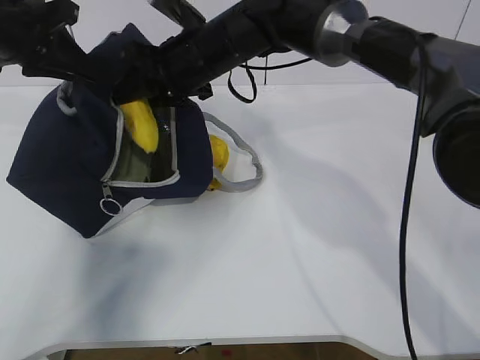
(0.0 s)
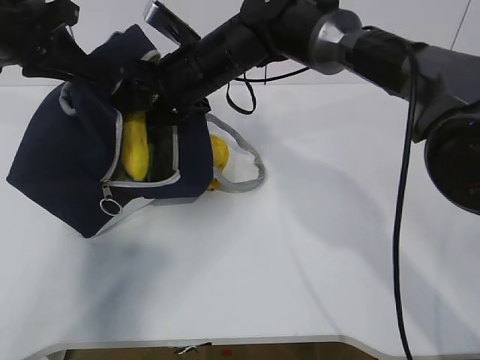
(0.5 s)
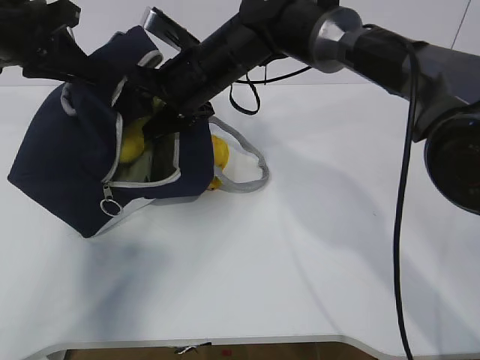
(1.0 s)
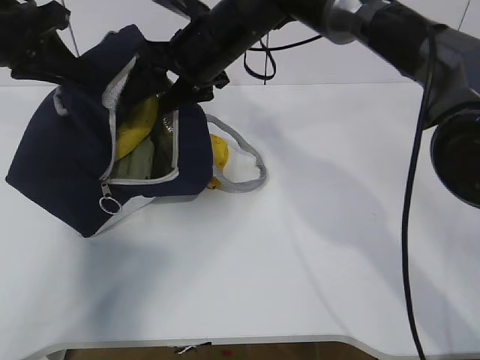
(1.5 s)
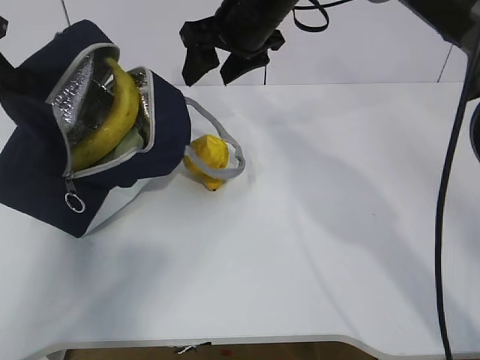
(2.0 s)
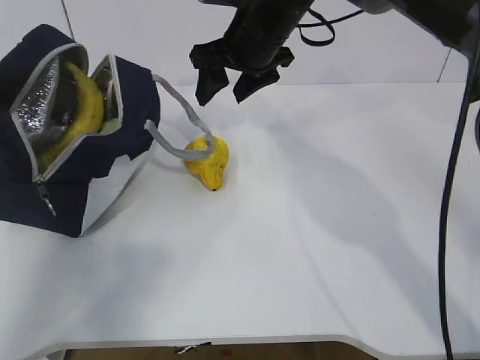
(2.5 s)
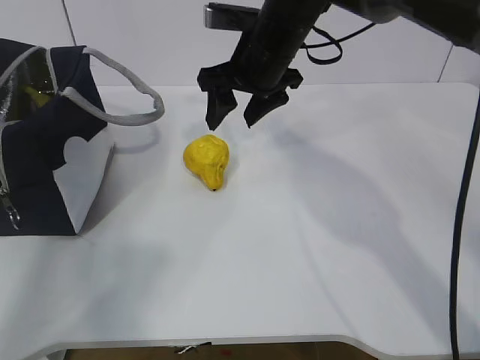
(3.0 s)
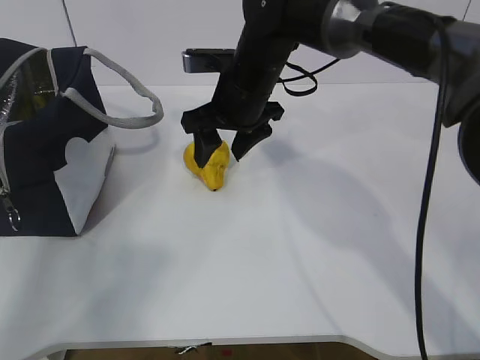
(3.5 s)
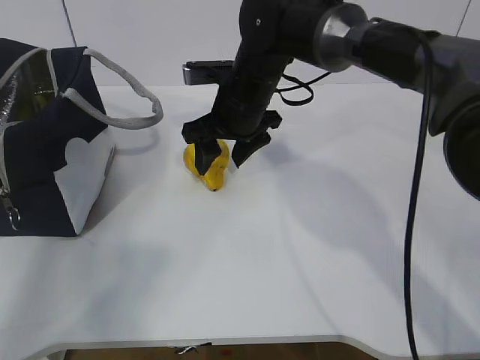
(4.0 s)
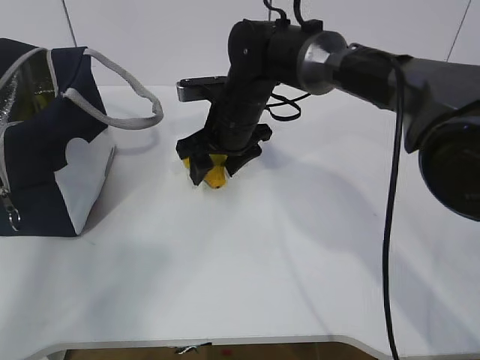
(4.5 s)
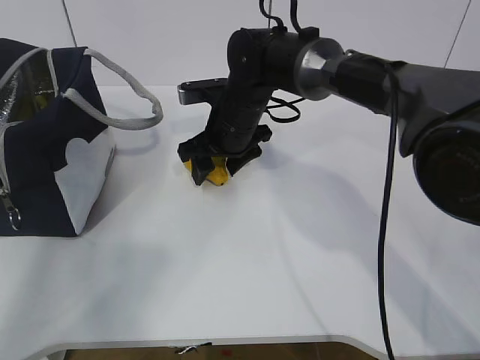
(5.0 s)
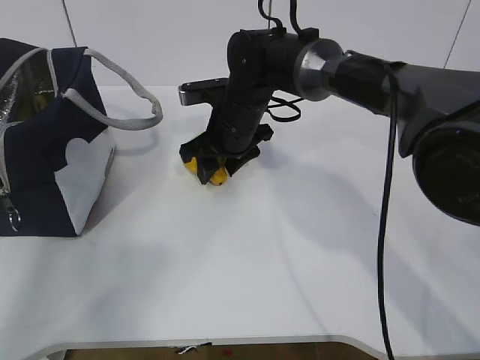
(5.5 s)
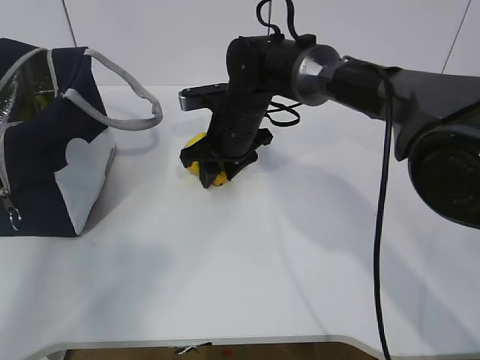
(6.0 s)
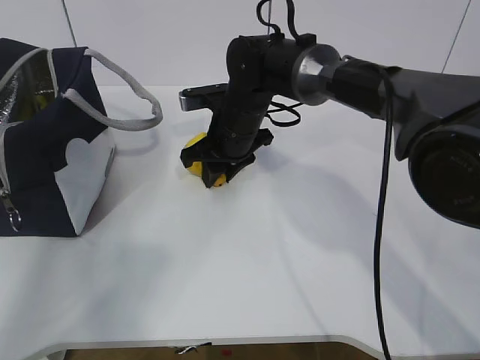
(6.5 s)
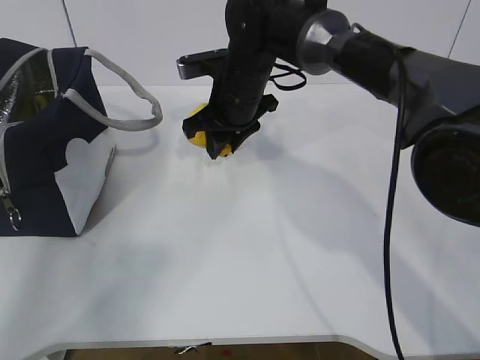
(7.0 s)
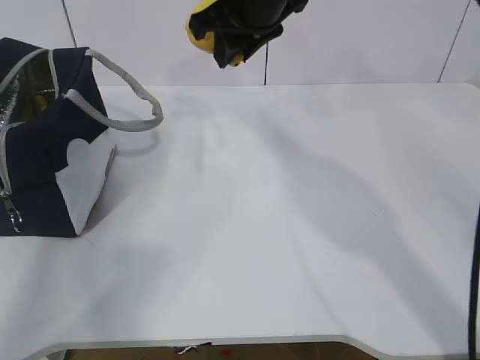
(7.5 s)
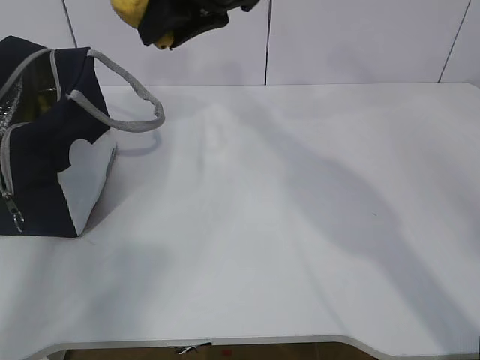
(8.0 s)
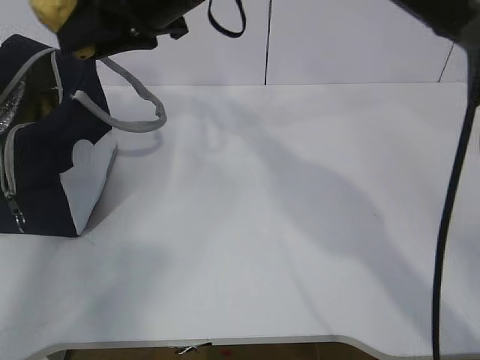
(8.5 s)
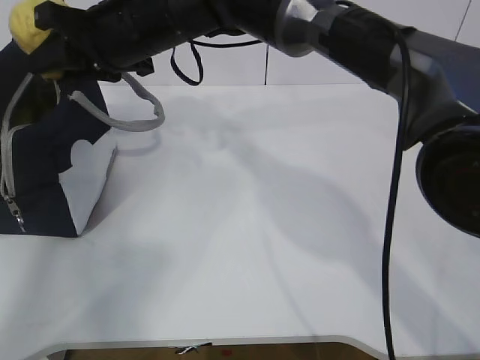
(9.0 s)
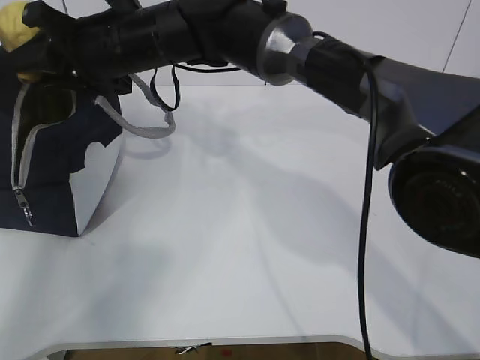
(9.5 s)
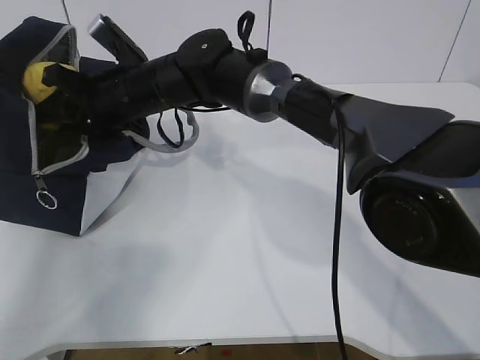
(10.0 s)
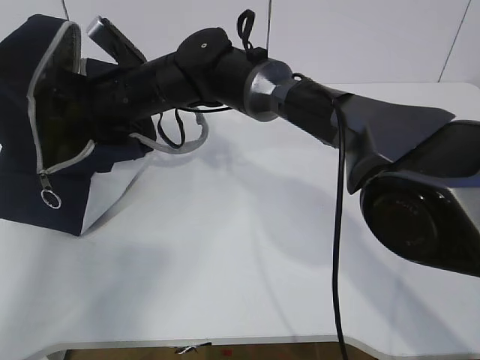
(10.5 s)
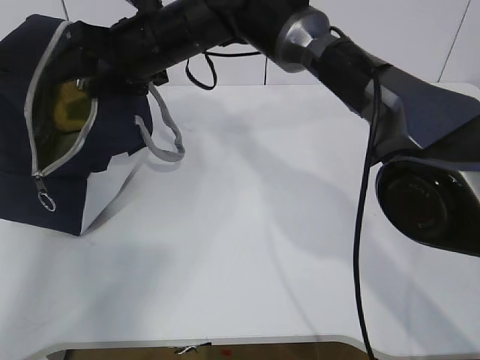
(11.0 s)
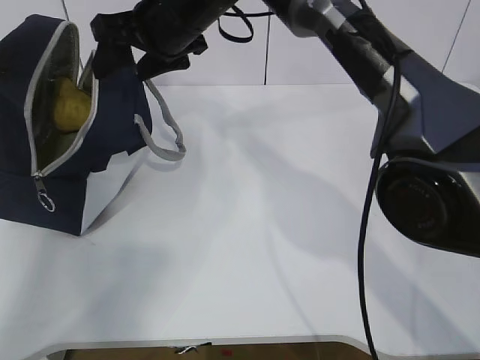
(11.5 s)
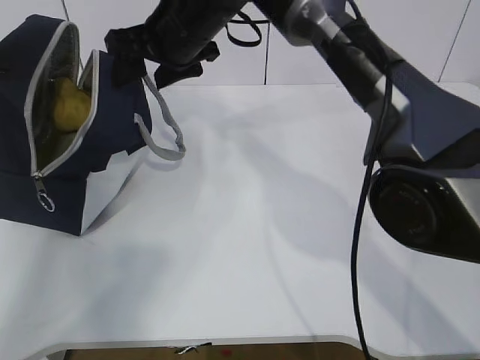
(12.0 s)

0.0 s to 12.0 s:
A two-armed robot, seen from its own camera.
Step, 2.0 to 4.5 s: Secure the lunch bag with your left hand.
Step, 5.5 to 6.5 s: Grab the lunch bag with your right hand.
Step, 7.0 to 8.0 s: Move the lunch bag to the right.
0.0 to 2.0 s: The left gripper is displaced to the left by about 10 cm. Meanwhile the right gripper moves to the right, about 5 cm, and opens its fingers.
2.0 to 4.0 s: The right gripper goes about 10 cm downward, while the left gripper heads to the left, covering about 5 cm.
4.0 to 6.0 s: There are only small adjustments of the grippers.
6.0 to 8.0 s: The right gripper is displaced upward by approximately 20 cm.
8.0 to 10.0 s: The right gripper is displaced downward and to the left by approximately 20 cm.
10.0 to 12.0 s: The right gripper heads upward and to the right, covering some 10 cm, and opens up.

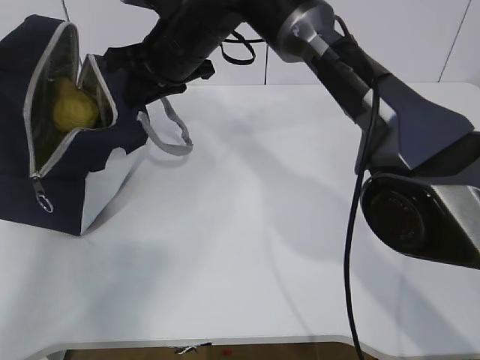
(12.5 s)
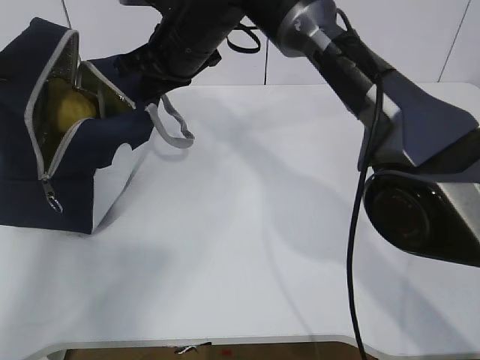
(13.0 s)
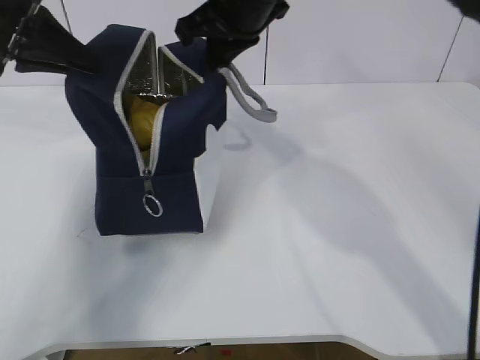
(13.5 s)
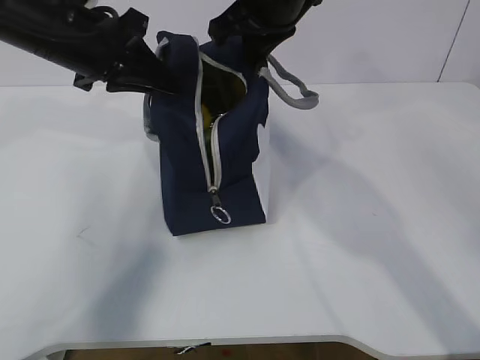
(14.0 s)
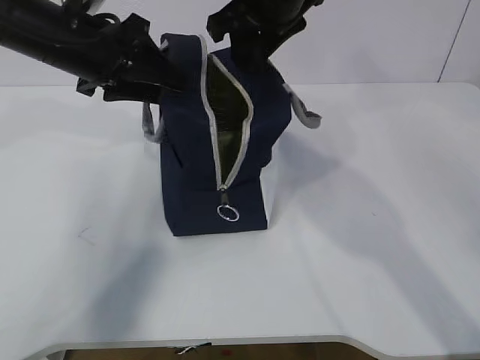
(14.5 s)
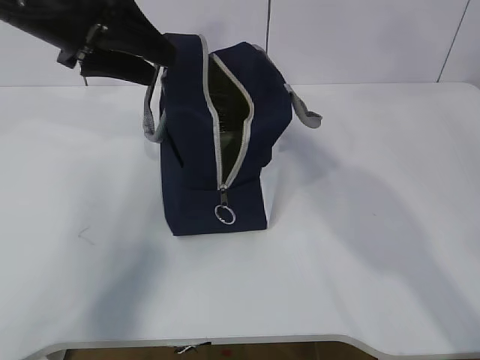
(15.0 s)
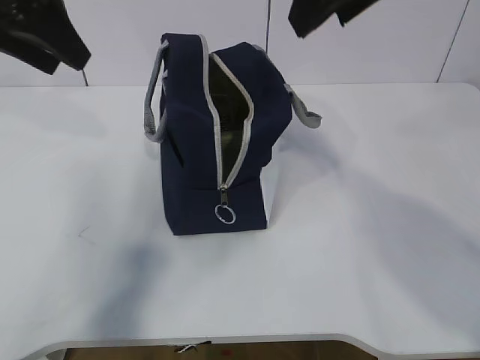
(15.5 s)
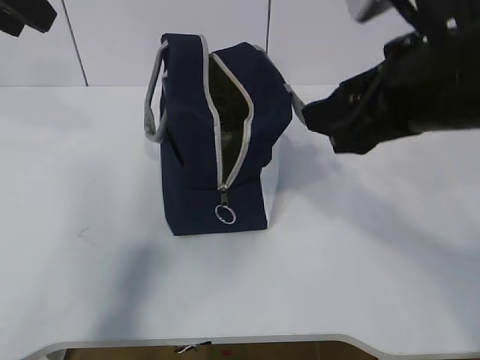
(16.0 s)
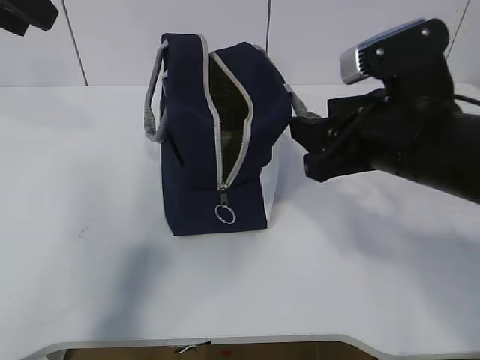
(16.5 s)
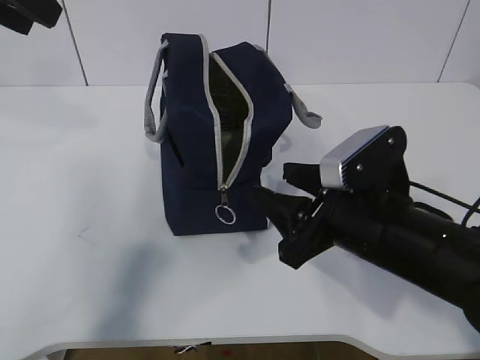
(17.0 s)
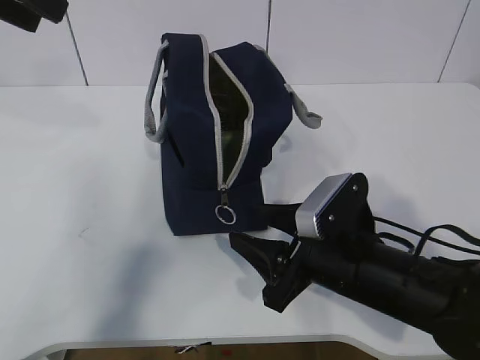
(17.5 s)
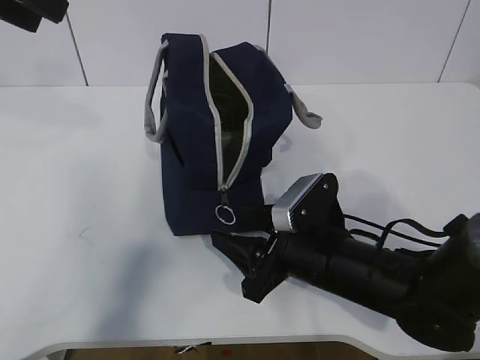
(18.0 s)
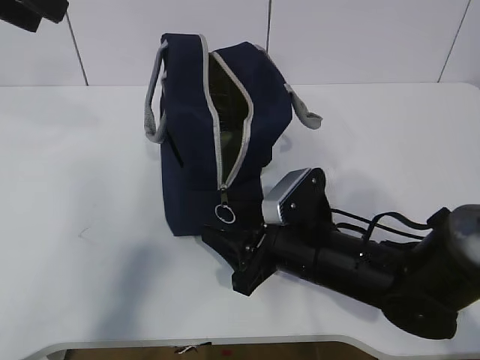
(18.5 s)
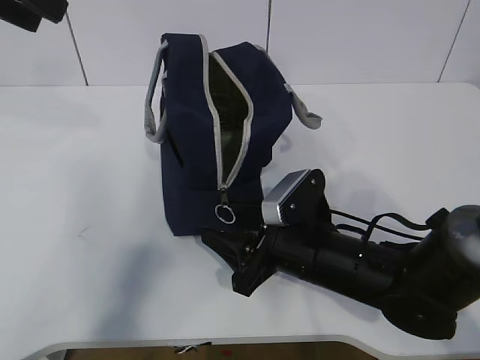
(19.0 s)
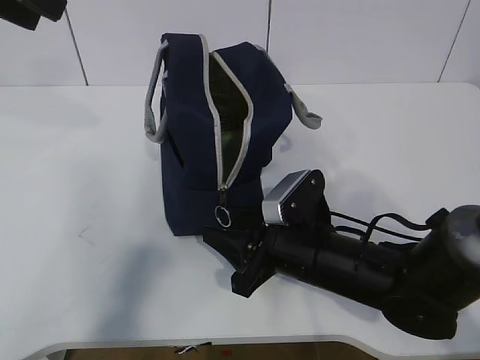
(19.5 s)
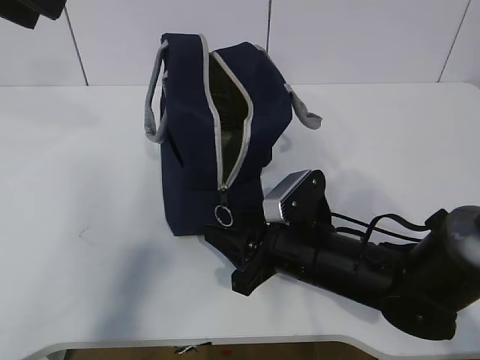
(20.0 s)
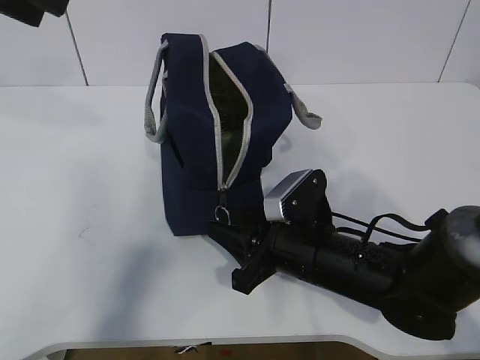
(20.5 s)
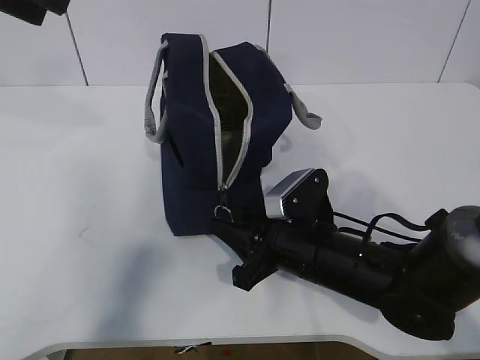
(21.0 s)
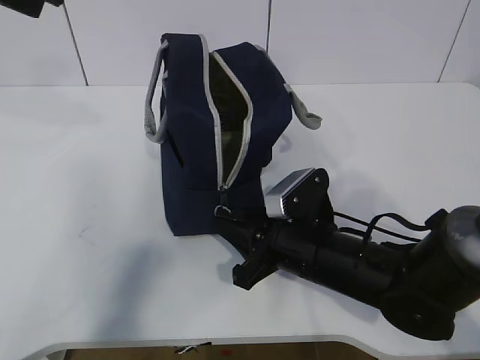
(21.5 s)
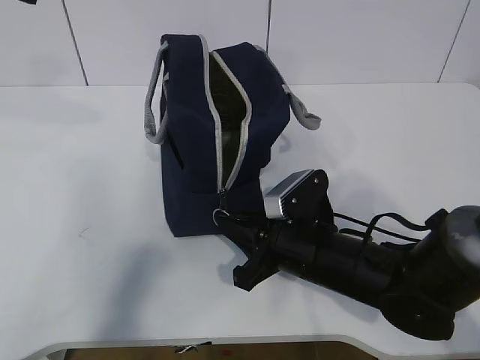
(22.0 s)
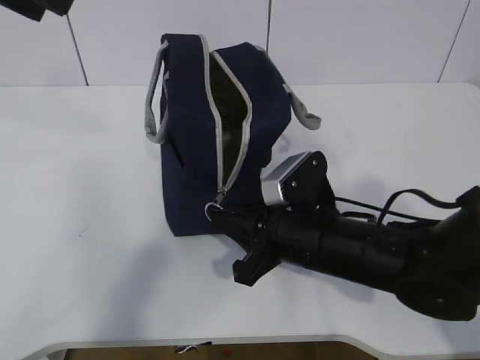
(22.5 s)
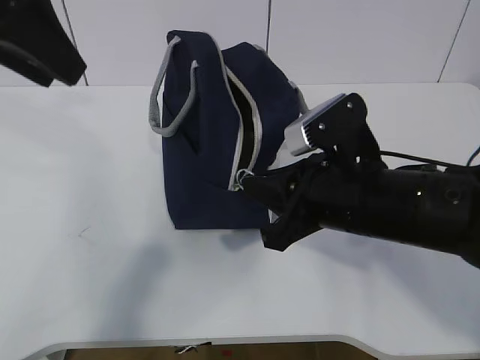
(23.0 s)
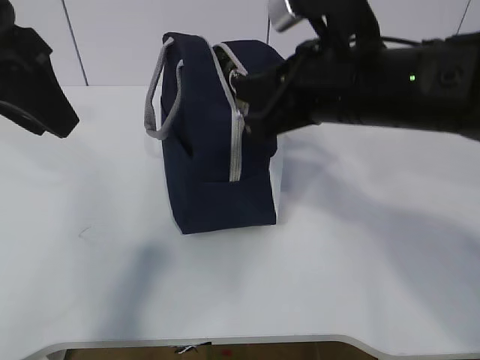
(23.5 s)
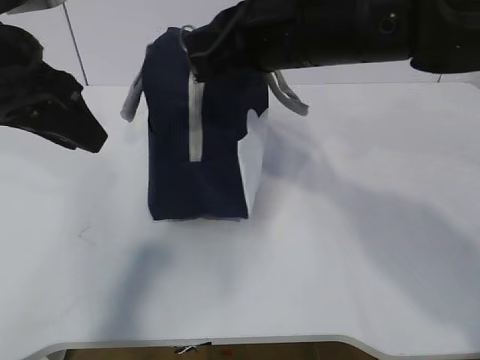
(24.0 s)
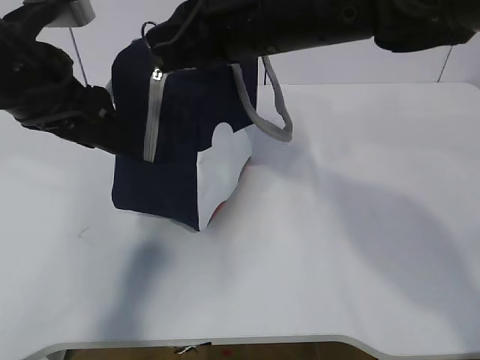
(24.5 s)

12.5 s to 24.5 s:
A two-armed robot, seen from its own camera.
Step, 12.5 to 19.0 s: Grab the lunch bag with your left hand.
Step, 19.5 to 21.5 s: Pull the zipper with your right hand.
12.5 to 14.5 s: The left gripper moves to the right, roughly 20 cm, and opens up; the right gripper moves to the right and upward, roughly 10 cm, and closes and opens again.
14.5 to 16.5 s: The right gripper travels backward, to the right and downward by roughly 20 cm. Meanwhile the left gripper travels upward, backward and to the left by about 15 cm.
16.5 to 18.5 s: The right gripper moves downward, roughly 15 cm.
18.5 to 20.5 s: The right gripper closes its fingers.
20.5 to 22.5 s: The right gripper closes up.
22.5 to 24.5 s: The left gripper moves downward, approximately 15 cm. Meanwhile the right gripper travels upward by some 20 cm.

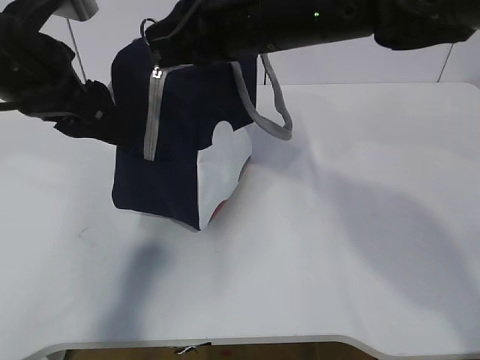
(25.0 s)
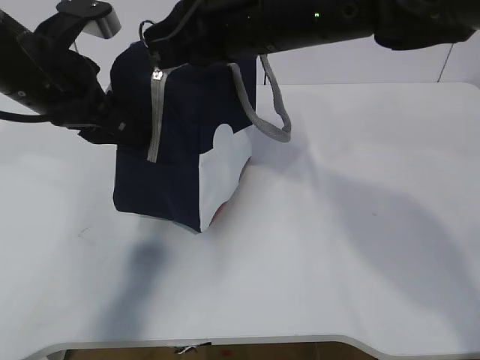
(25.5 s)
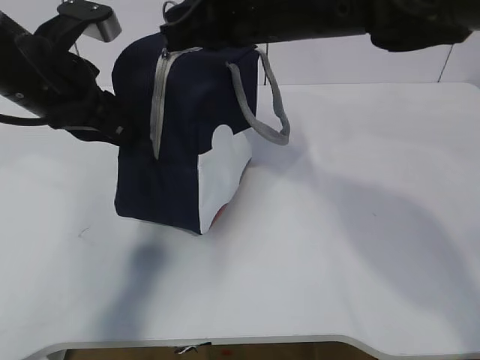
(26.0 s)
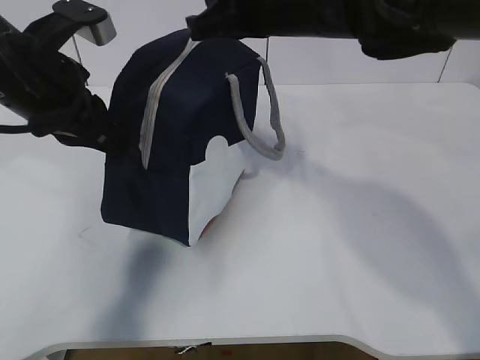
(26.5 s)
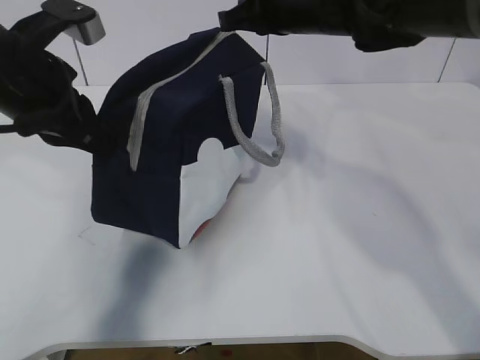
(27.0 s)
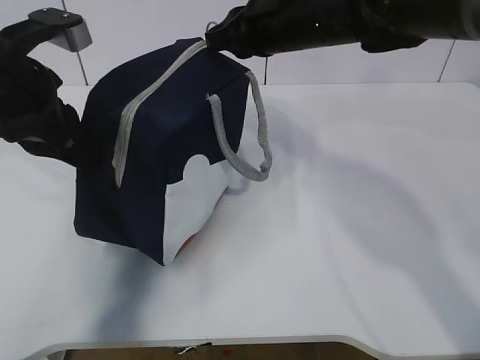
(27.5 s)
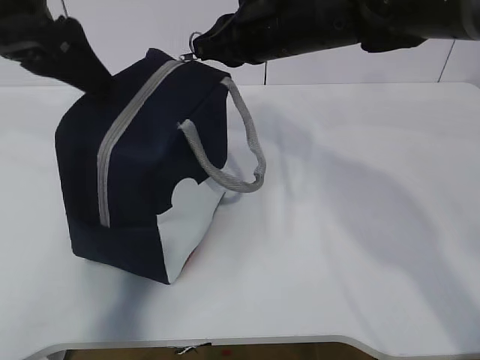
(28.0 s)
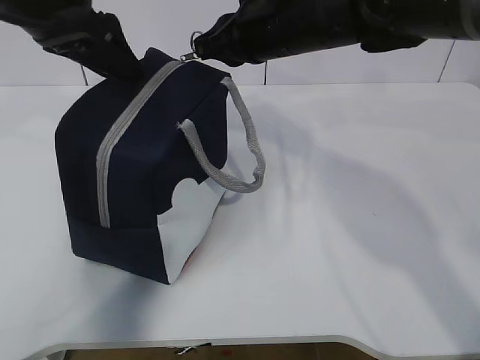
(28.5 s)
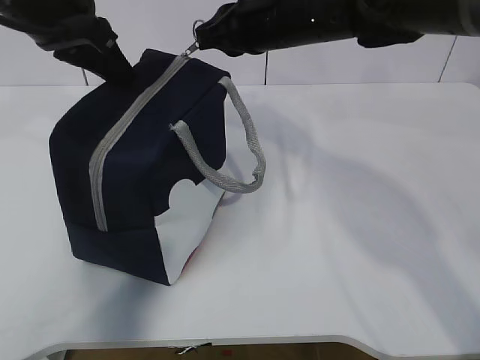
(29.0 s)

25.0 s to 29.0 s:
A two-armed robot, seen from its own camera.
25.0 to 27.0 s: The right gripper shifts approximately 10 cm forward and to the right; the left gripper closes.
27.0 to 29.0 s: The left gripper goes some 5 cm upward and forward, and opens, then closes again.
